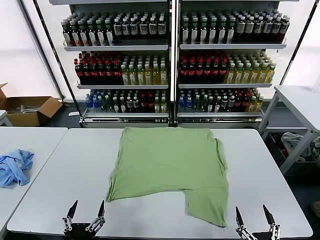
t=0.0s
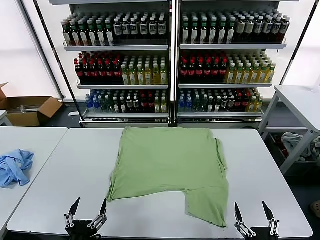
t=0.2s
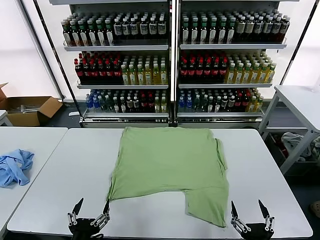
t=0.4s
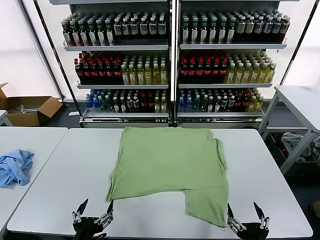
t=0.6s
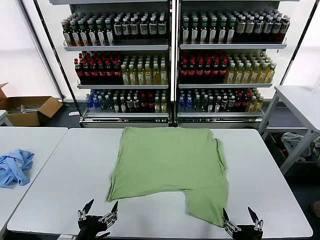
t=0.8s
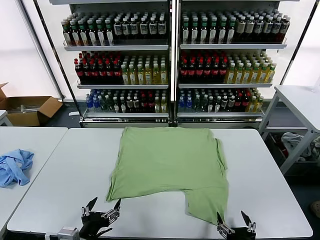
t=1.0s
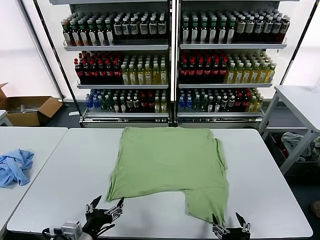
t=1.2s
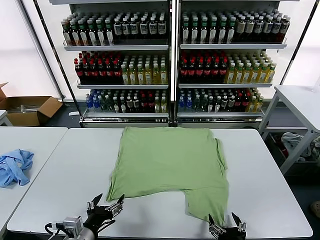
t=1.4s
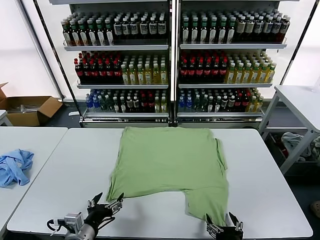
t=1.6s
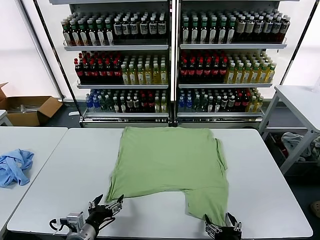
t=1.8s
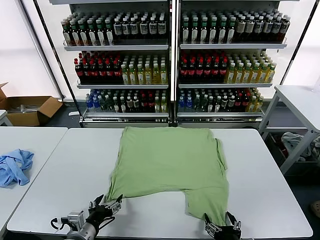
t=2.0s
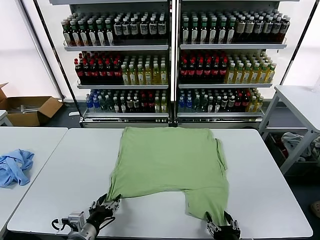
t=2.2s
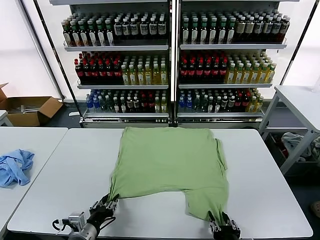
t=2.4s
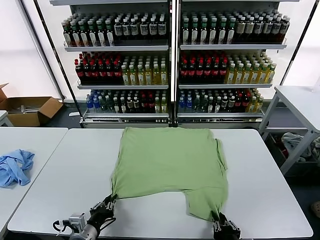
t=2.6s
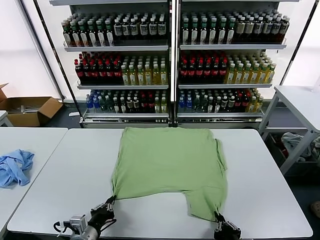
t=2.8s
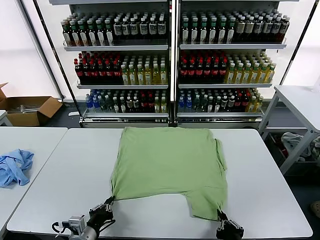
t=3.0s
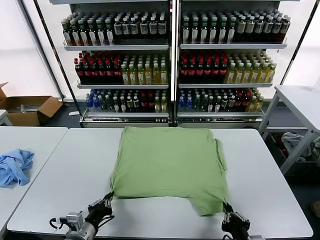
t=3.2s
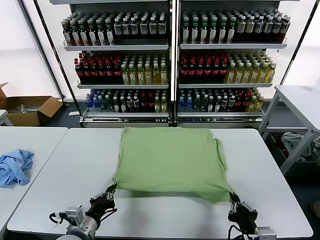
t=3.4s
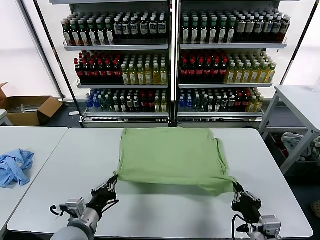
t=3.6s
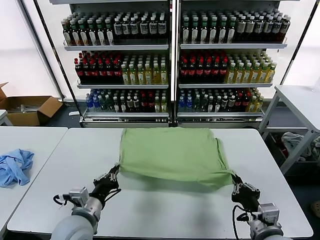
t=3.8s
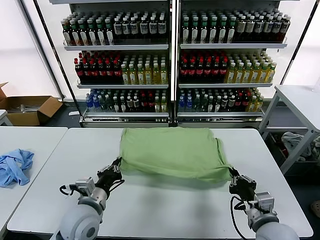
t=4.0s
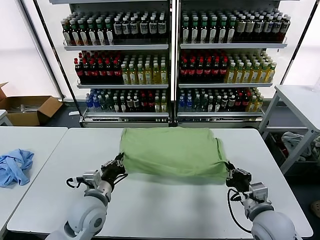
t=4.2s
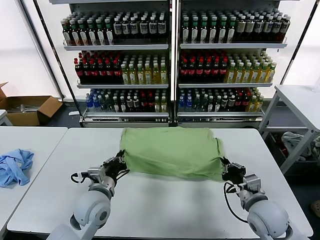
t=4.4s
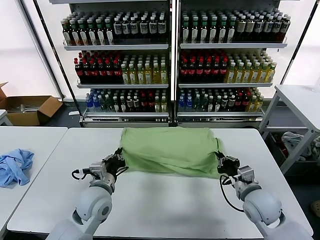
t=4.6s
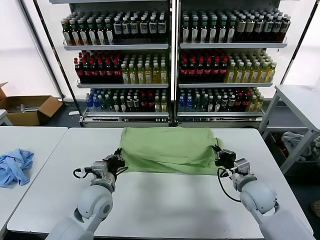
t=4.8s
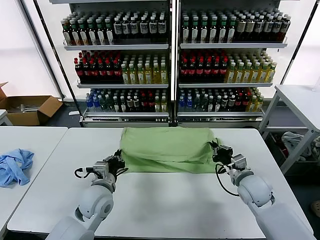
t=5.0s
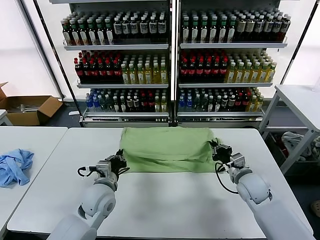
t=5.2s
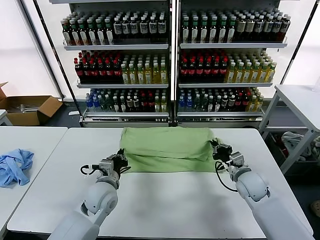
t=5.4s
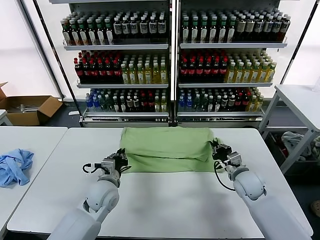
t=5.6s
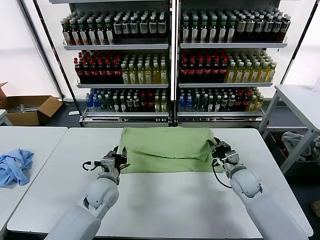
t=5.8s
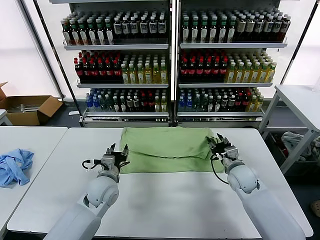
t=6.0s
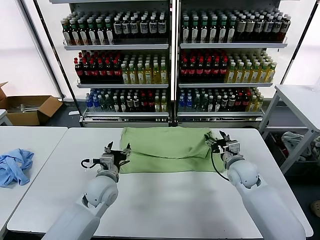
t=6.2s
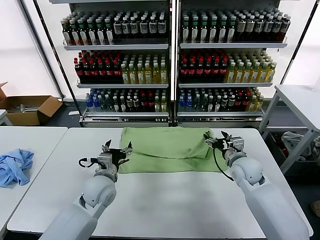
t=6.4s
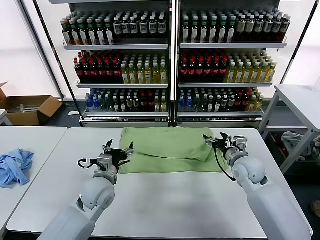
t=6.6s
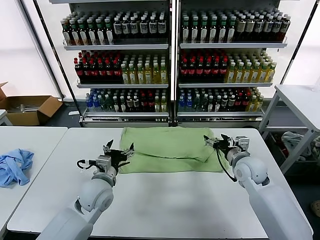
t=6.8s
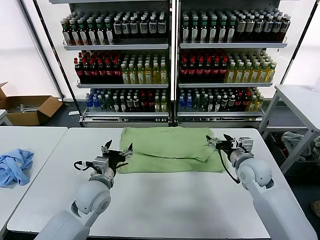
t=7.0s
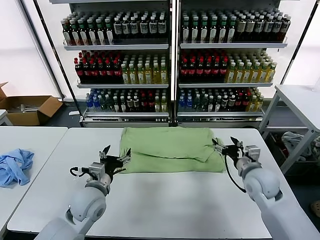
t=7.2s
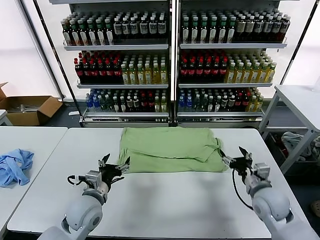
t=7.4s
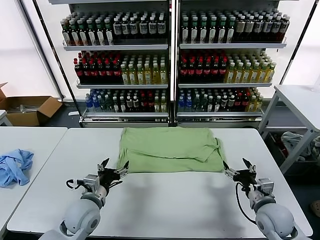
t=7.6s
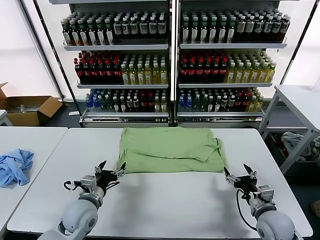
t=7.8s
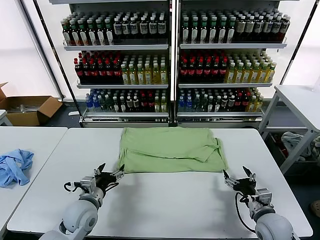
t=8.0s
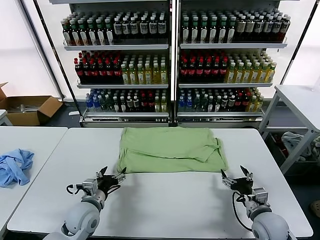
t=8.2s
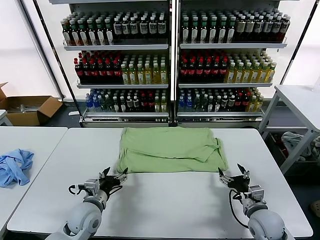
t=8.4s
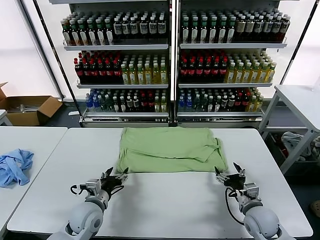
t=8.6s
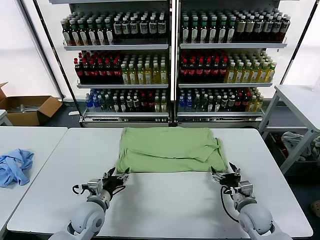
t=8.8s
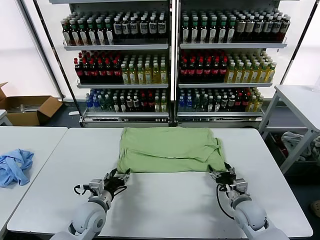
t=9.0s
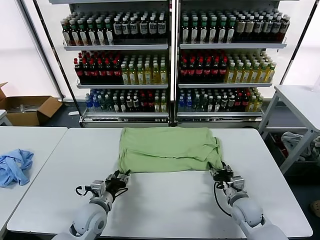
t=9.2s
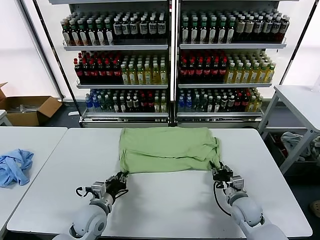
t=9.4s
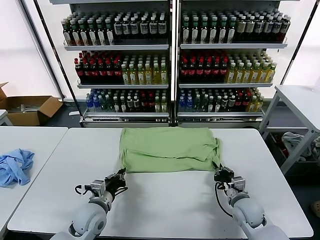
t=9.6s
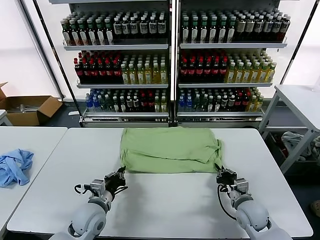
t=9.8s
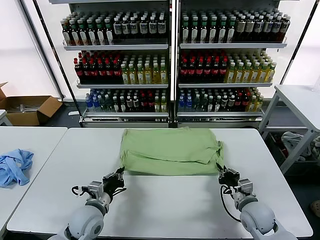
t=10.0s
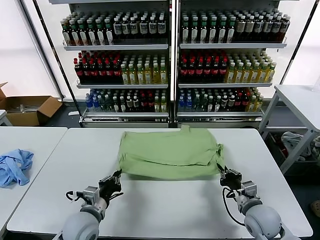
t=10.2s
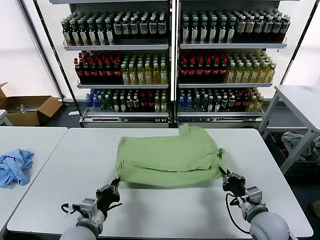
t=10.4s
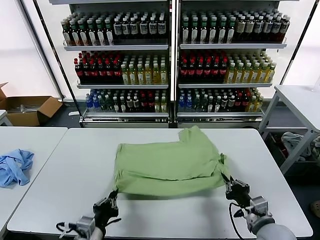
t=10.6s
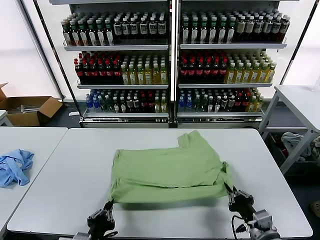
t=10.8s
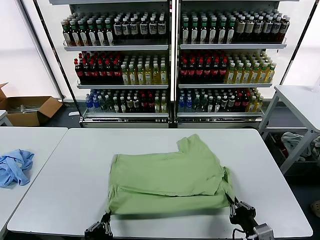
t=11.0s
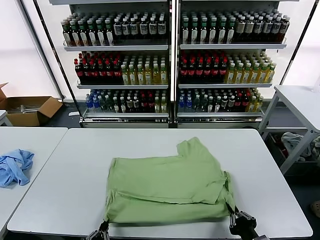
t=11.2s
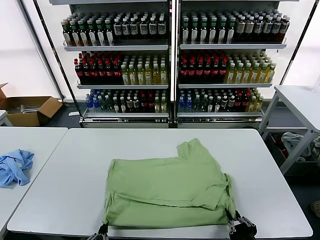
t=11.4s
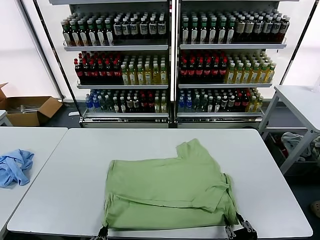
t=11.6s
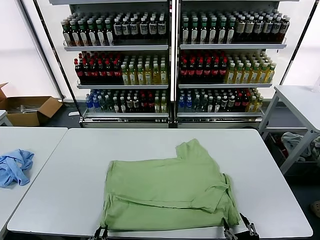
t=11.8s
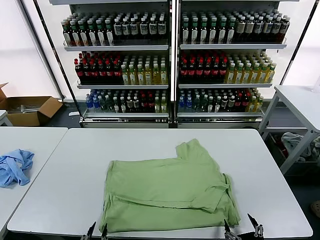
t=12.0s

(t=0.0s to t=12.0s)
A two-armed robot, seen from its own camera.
Task of the whole recording: fold and organize the clothes.
Step, t=0.0s - t=2.8s: use both grippers simultaneously to clamp the lower edge of the clothing fabric.
Step, t=3.0s - t=6.6s: use both grippers to drag the lower edge of the fabric forward and fold it over the upper edge.
Step, t=6.8s - t=12.0s: Drag the clothes downward with both gripper.
t=1.6s - t=3.0s: The left gripper closes its fingers. Meanwhile the right gripper closes.
t=3.0s - t=4.4s: The left gripper travels forward, upward and to the right by some 15 cm; the right gripper moves forward, some 20 cm.
t=4.4s - t=6.0s: The right gripper moves forward, roughly 15 cm, and opens up. The left gripper goes about 5 cm forward, and opens its fingers.
t=6.0s - t=7.6s: The left gripper is displaced backward by approximately 5 cm, and opens. The right gripper shifts roughly 15 cm backward.
t=7.6s - t=9.0s: The right gripper is displaced downward and forward by about 5 cm.
t=9.0s - t=10.4s: The left gripper goes roughly 10 cm backward, and closes up. The right gripper is displaced backward and upward by approximately 10 cm, and closes its fingers.
t=10.4s - t=12.0s: The grippers both shift backward by roughly 15 cm. The right gripper opens up; the left gripper opens its fingers.

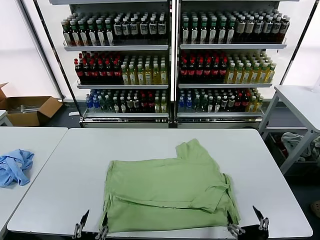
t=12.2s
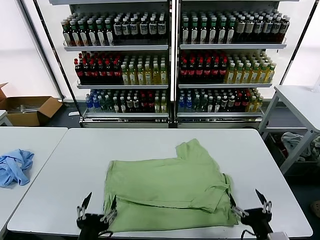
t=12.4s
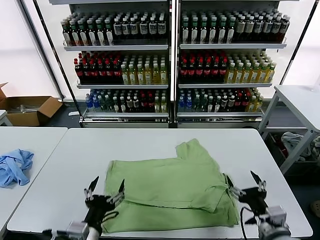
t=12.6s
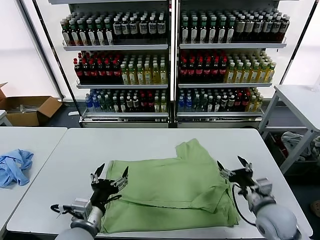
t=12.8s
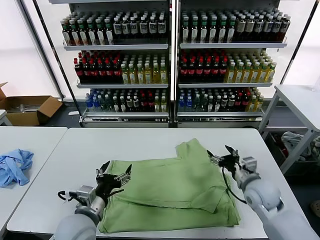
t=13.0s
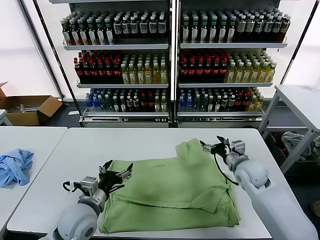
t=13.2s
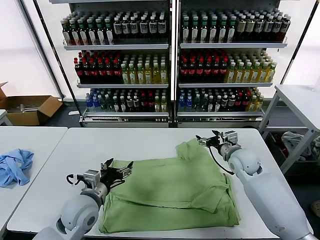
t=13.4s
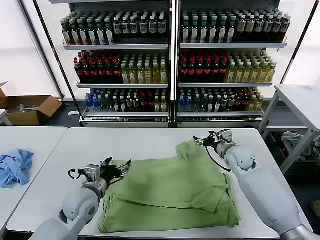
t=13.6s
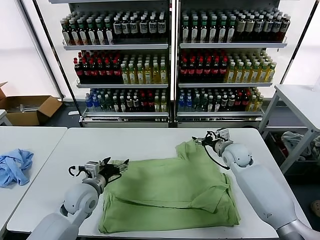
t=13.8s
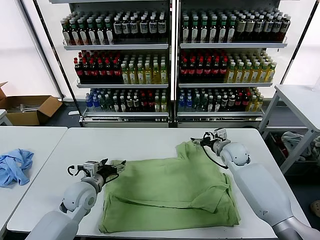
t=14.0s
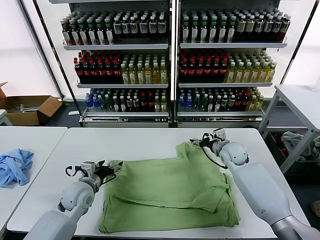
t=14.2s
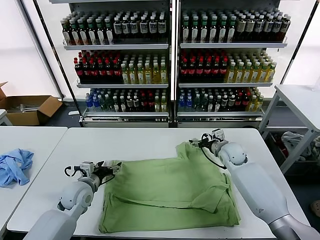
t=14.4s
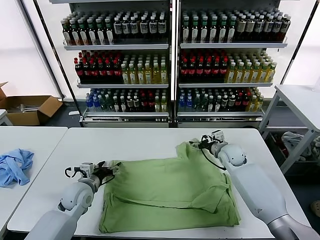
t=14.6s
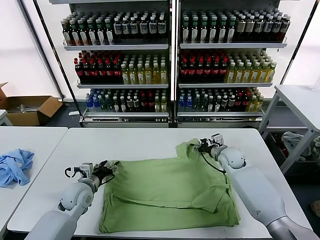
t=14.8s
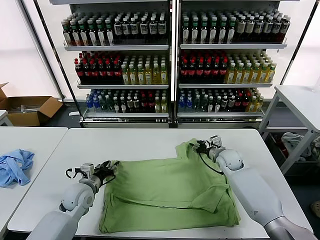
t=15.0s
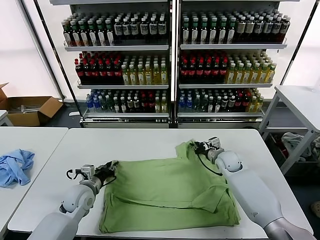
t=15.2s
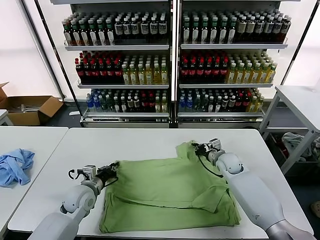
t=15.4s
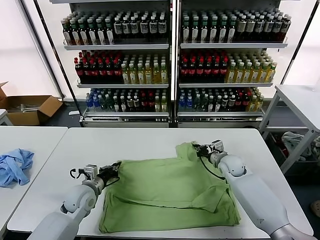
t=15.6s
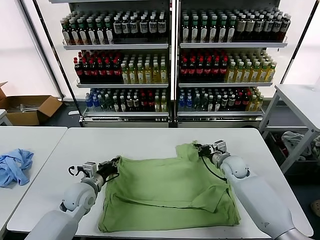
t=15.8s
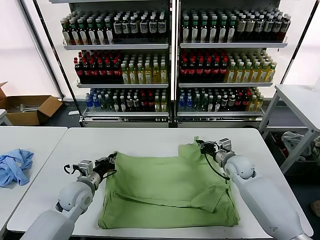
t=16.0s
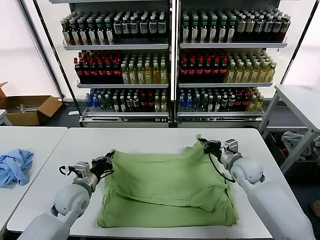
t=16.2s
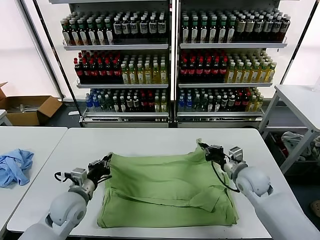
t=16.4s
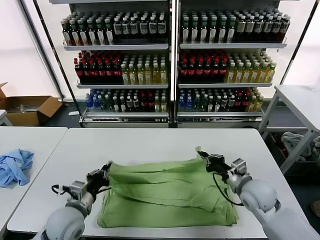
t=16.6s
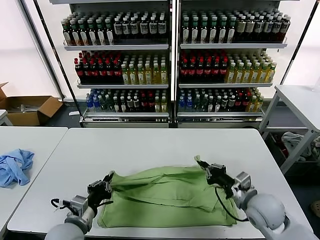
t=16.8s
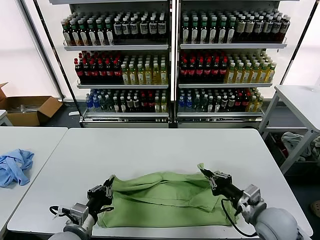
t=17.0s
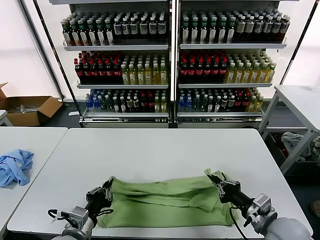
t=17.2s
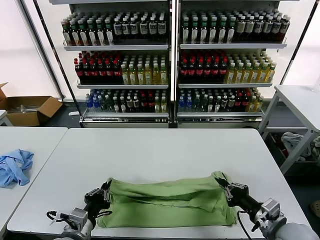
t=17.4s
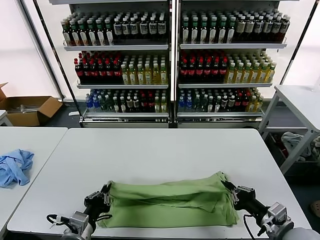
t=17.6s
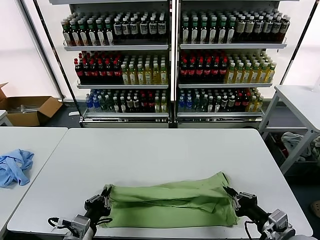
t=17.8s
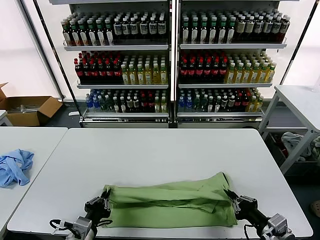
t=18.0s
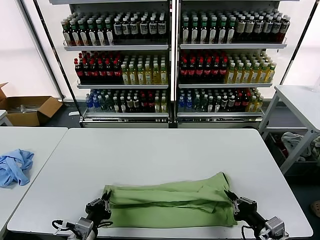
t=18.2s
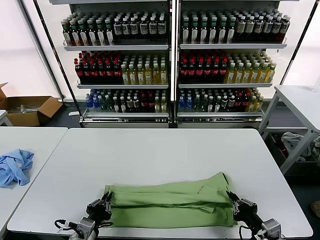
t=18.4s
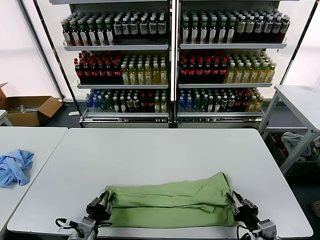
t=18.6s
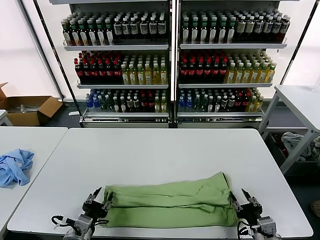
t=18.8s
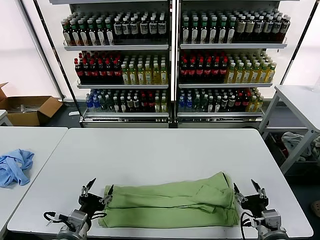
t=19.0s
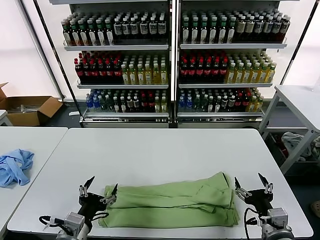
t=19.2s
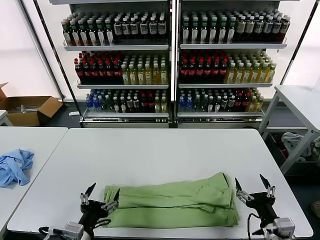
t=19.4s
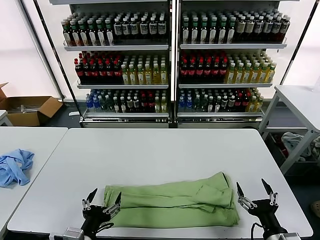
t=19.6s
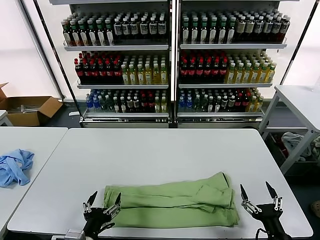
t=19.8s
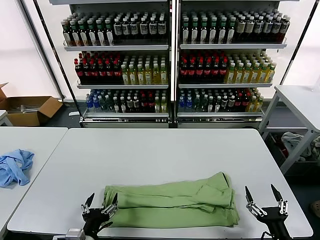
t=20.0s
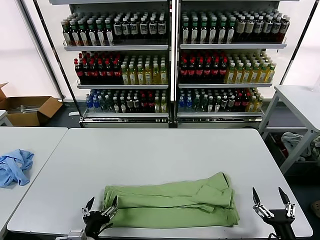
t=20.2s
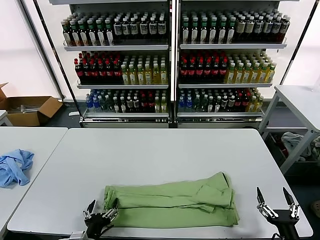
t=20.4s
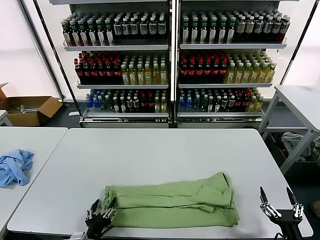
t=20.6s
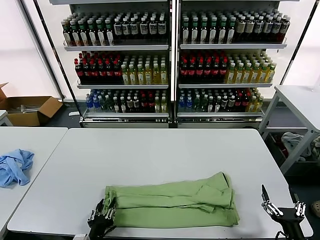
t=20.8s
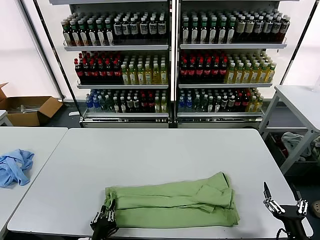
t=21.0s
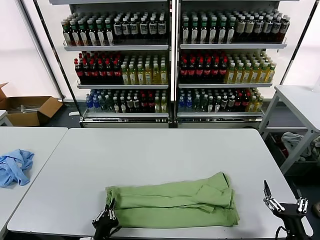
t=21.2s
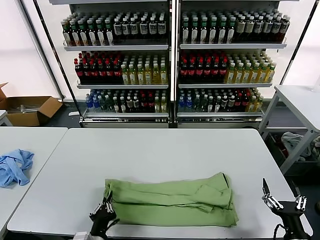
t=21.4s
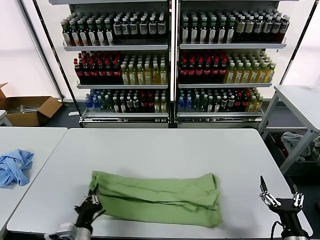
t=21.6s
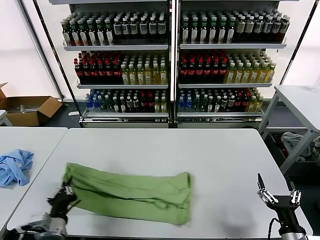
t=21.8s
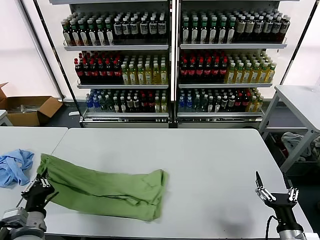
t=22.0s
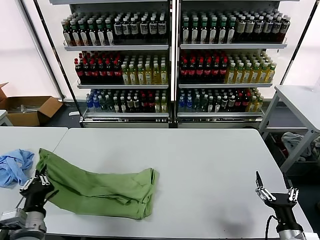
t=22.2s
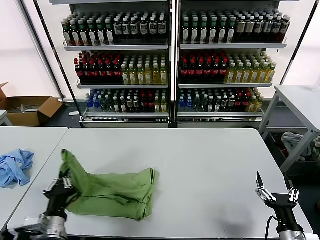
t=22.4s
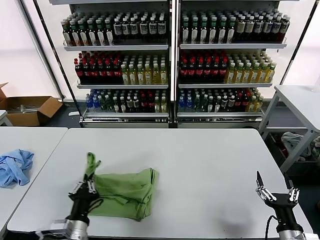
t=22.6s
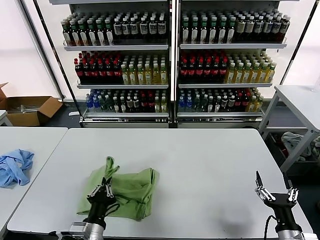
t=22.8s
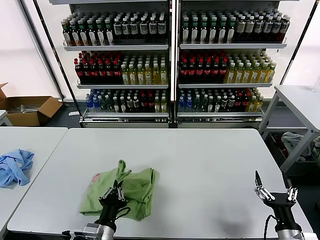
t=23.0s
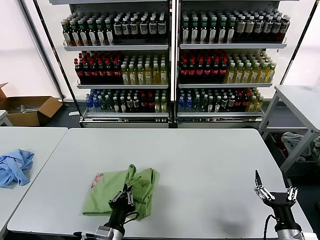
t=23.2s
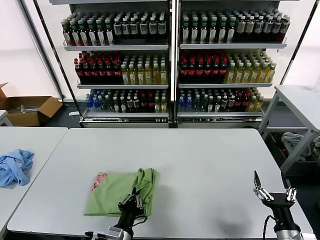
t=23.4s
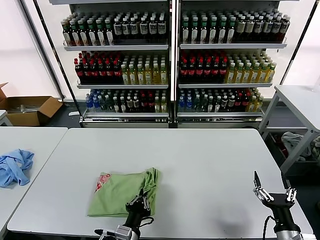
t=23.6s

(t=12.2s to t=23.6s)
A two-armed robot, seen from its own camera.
Task of the whole recording: fold and organize the clothes.
Step, t=12.2s - t=15.4s: use both grippers simultaneously to clamp the upper edge of the clothing fabric.
Step, t=15.6s - t=18.8s: use both grippers to drag the upper edge of the fabric backward and fold it over the lower edge.
Step, t=19.0s - t=21.2s: use the left gripper to clamp the left edge of the fabric.
t=12.2s - t=13.6s: The left gripper is displaced forward by about 25 cm, and opens its fingers, while the right gripper heads forward, covering approximately 40 cm.
t=13.6s - t=15.0s: The two grippers go some 5 cm downward. The left gripper closes, while the right gripper closes its fingers.
t=15.0s - t=16.4s: The right gripper moves backward and upward, roughly 15 cm, and closes up. Meanwhile the left gripper moves backward, some 5 cm, and closes up.
t=16.4s - t=17.8s: The grippers both shift backward by some 15 cm.
t=17.8s - t=19.4s: The right gripper opens; the left gripper opens.
t=19.4s - t=20.8s: The right gripper is displaced to the right by about 5 cm; the left gripper is displaced downward by roughly 10 cm, and closes its fingers.
t=20.8s - t=22.2s: The left gripper heads upward and to the left, covering about 15 cm, and closes.
t=22.2s - t=23.6s: The left gripper goes roughly 20 cm to the right and downward.
